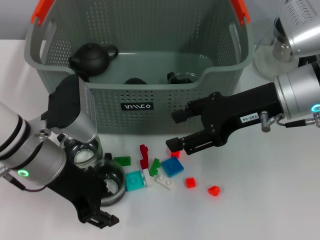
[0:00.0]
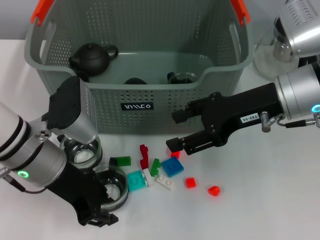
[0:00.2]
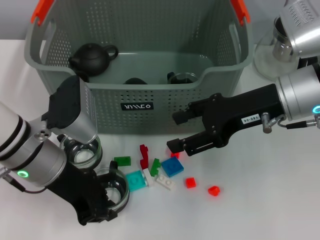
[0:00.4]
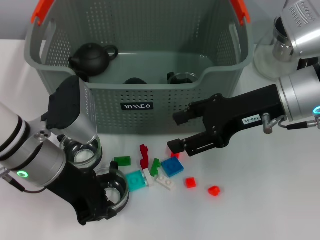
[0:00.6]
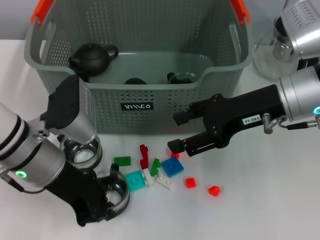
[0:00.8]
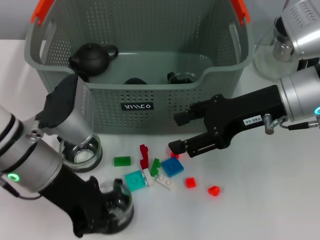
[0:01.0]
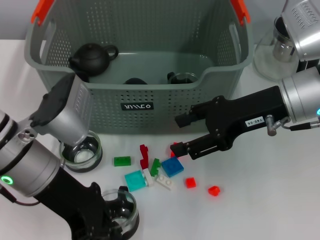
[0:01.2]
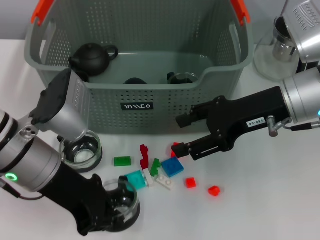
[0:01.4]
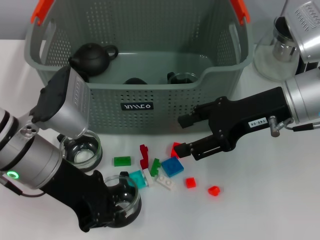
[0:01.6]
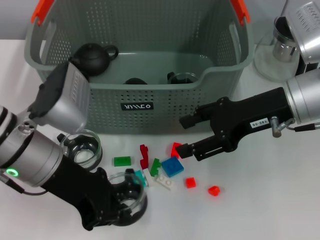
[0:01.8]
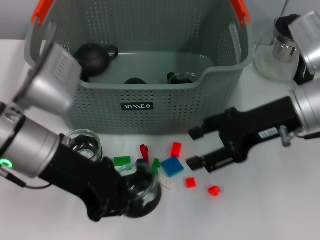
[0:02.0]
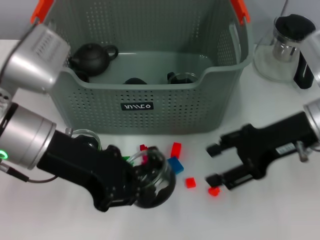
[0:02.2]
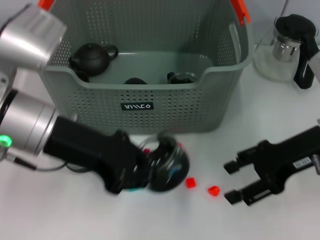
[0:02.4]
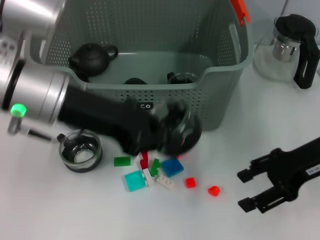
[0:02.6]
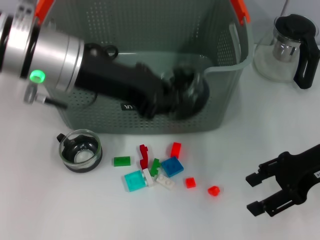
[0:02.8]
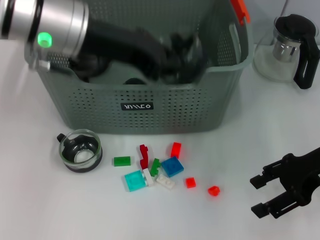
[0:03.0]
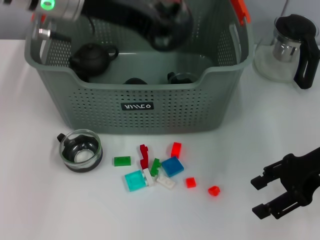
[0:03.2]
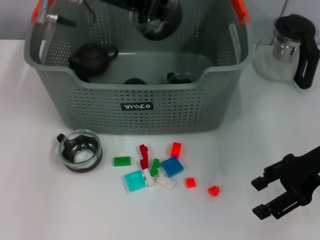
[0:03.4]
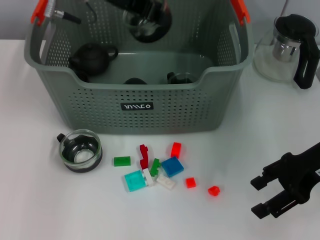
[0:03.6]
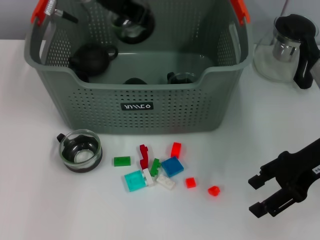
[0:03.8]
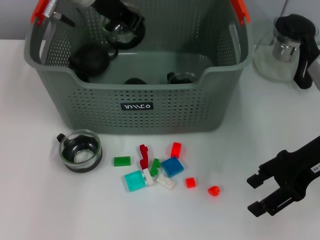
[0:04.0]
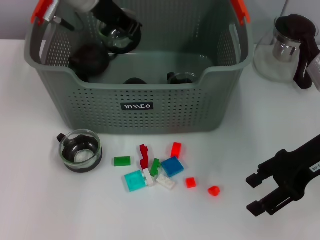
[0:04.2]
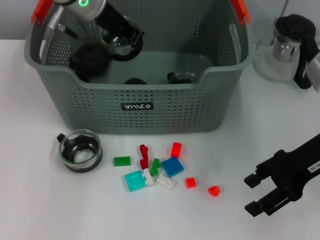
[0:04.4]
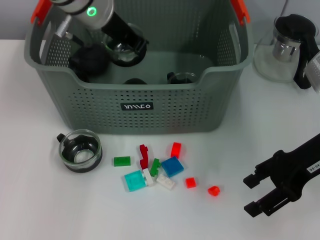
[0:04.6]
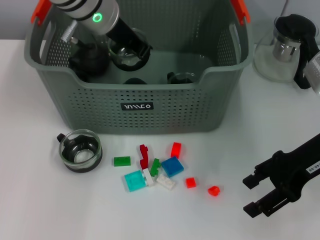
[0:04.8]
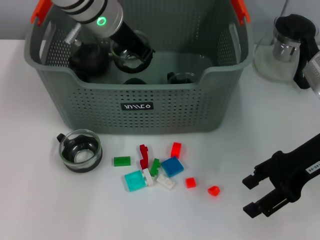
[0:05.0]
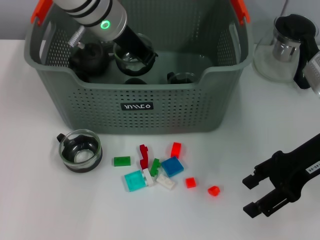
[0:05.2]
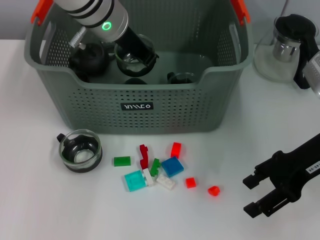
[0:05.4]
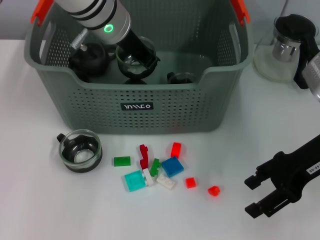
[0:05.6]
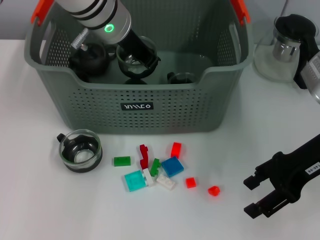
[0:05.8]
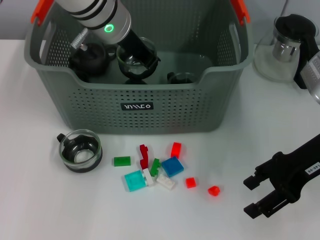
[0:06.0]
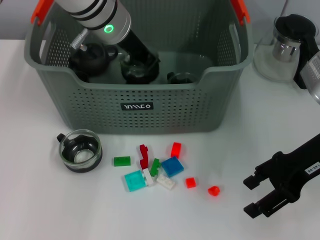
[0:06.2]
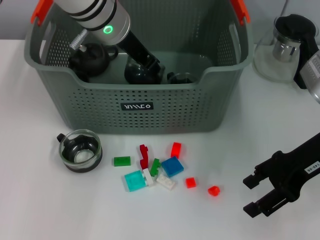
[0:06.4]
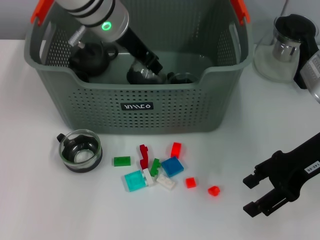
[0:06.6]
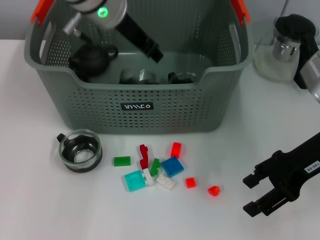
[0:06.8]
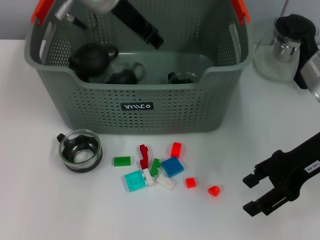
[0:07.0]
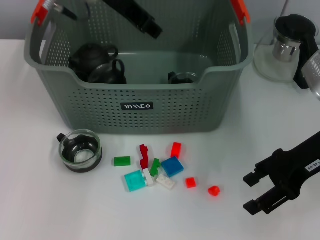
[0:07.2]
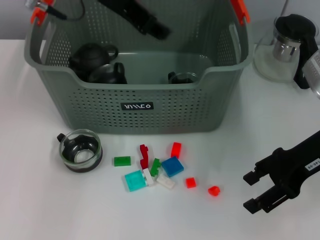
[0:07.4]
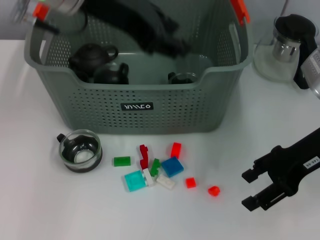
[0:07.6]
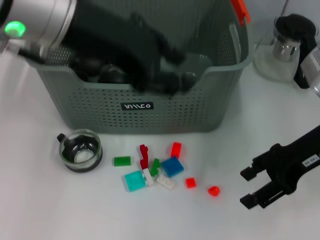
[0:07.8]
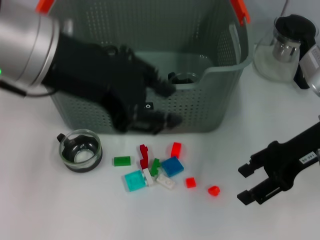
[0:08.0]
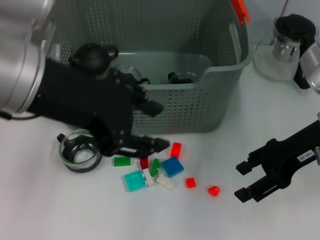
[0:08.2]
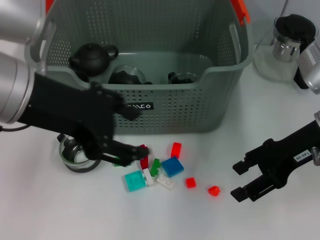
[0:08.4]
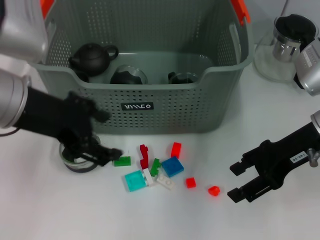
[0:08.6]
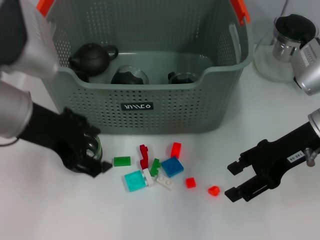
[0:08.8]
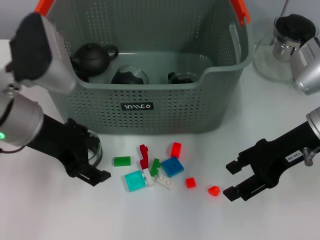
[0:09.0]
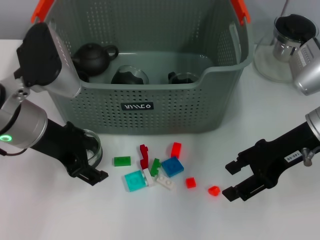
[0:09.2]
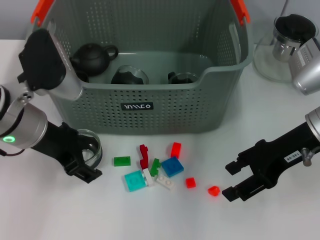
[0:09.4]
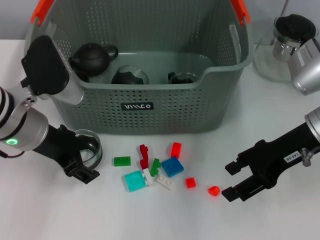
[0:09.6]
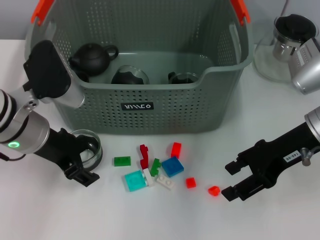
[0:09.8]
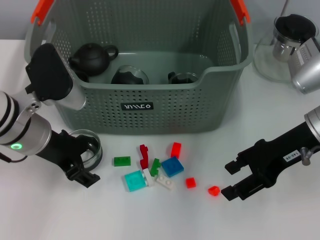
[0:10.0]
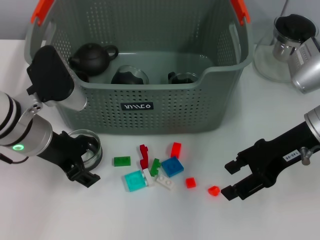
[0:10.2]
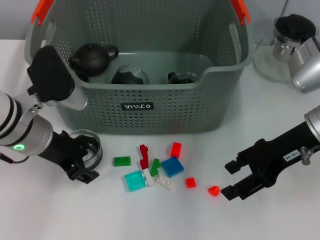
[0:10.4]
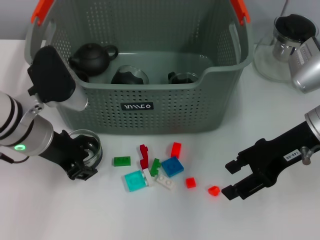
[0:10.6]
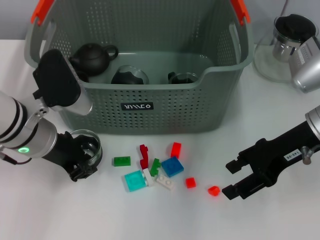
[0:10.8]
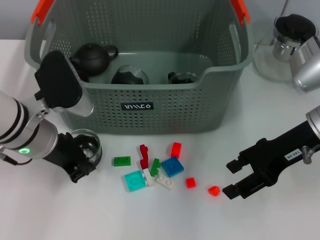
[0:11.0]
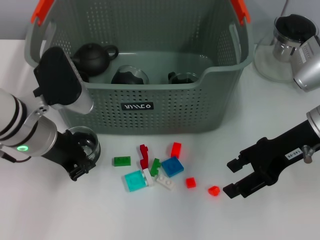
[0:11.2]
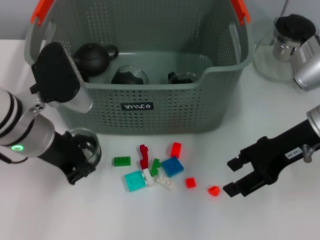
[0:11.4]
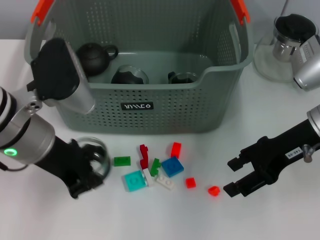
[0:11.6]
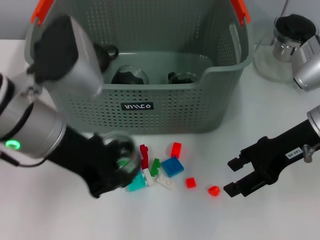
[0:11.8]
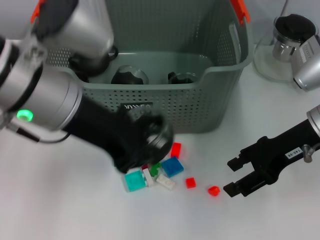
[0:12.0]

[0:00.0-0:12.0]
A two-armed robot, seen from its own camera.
Task of the whole recording: pick up the teacup on the table and place it into the storage bin, pick up the block on the table and place it into the storage bin.
Step, 0:00.8 to 0:06.6: Place the cup in the storage box with left gripper.
Step, 0:07.0 to 0:11.0: Grasp the cup with left gripper.
0:00.0 to 0:01.6: The left gripper closes up.
0:01.6 to 0:03.0: The right gripper heads to the right, covering roughly 10 cm, while the left gripper travels upward and forward by some 15 cm.
0:03.0 to 0:04.4: The left gripper travels forward by some 10 cm.
0:04.4 to 0:06.0: The grippers make only small movements.
0:06.0 to 0:07.6: The left gripper moves upward and backward, roughly 15 cm, and opens up.
0:07.6 to 0:09.0: The left gripper heads downward and to the left, covering roughly 15 cm, and opens up.
0:09.0 to 0:10.4: The left gripper goes some 5 cm downward.
0:10.4 to 0:12.0: The left gripper moves upward and to the right, approximately 15 cm, and closes its fingers.

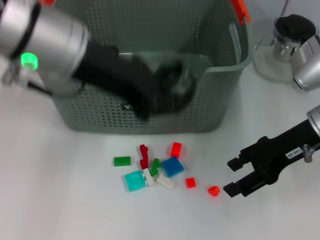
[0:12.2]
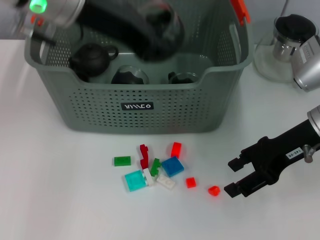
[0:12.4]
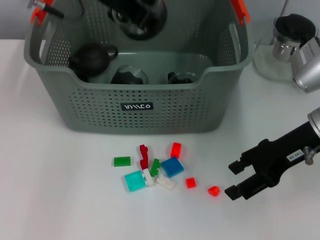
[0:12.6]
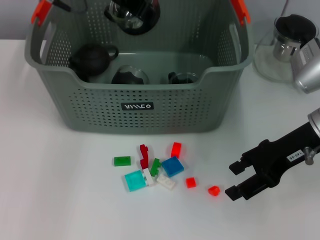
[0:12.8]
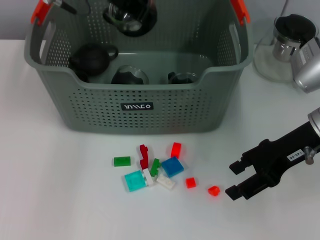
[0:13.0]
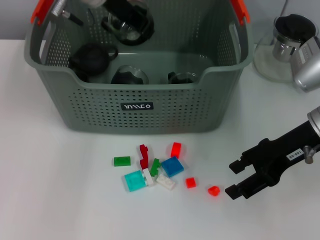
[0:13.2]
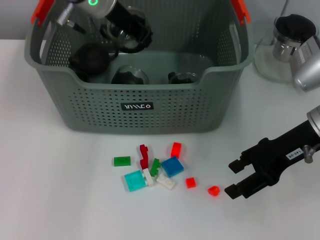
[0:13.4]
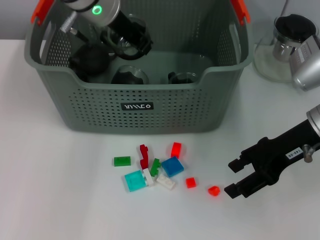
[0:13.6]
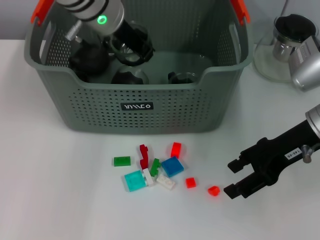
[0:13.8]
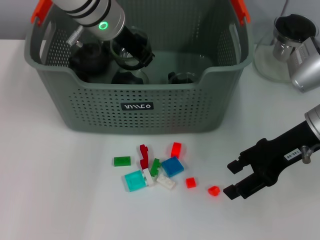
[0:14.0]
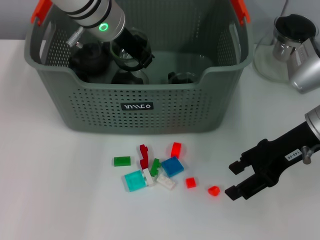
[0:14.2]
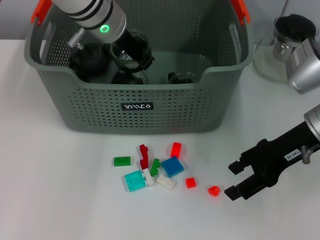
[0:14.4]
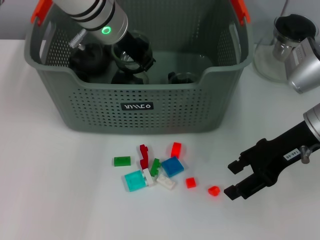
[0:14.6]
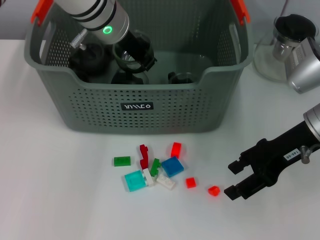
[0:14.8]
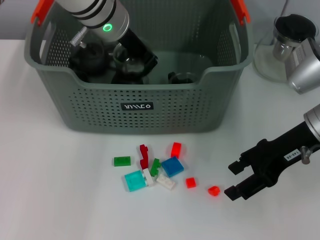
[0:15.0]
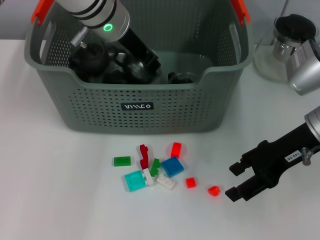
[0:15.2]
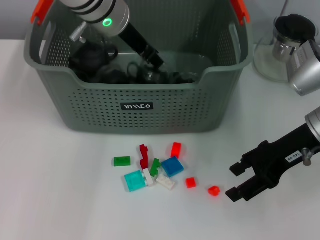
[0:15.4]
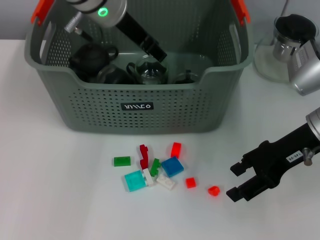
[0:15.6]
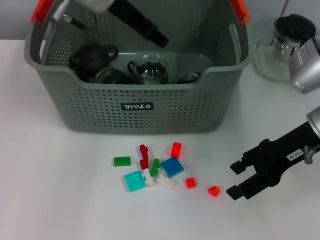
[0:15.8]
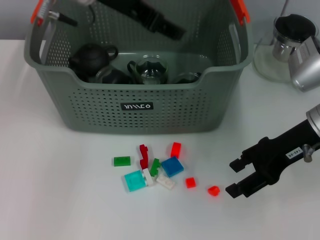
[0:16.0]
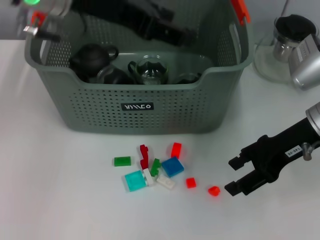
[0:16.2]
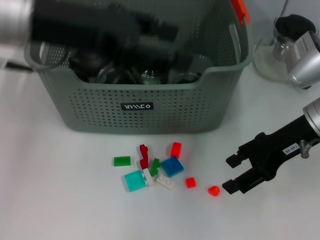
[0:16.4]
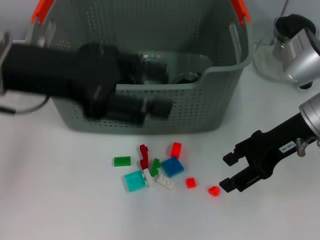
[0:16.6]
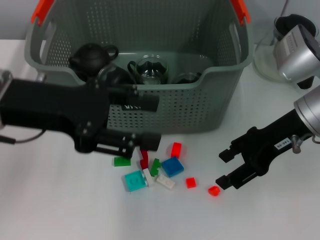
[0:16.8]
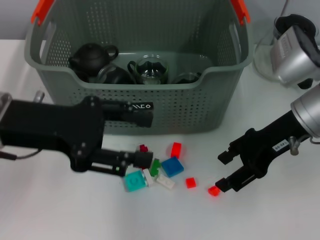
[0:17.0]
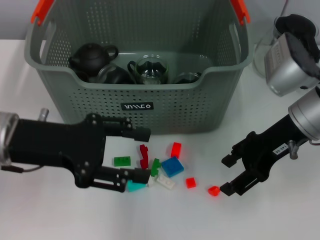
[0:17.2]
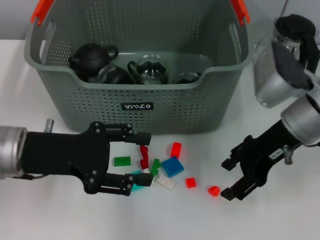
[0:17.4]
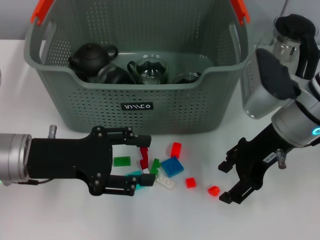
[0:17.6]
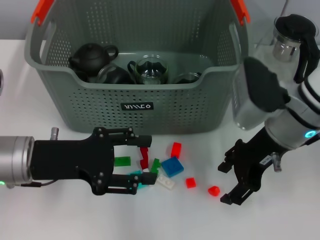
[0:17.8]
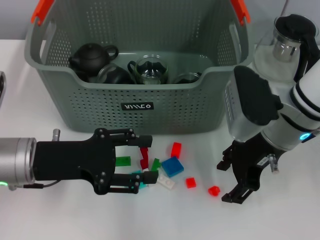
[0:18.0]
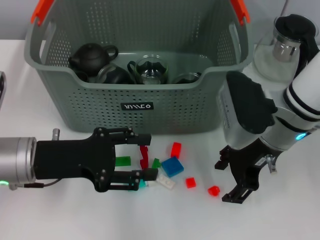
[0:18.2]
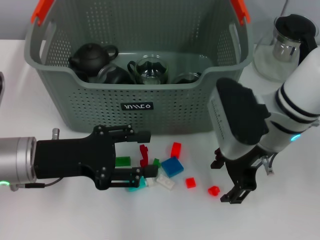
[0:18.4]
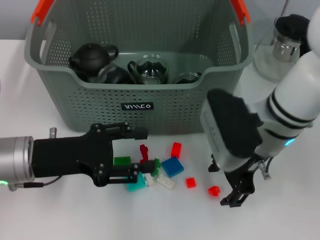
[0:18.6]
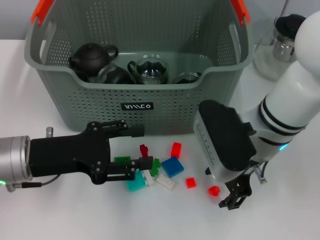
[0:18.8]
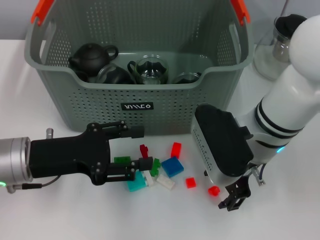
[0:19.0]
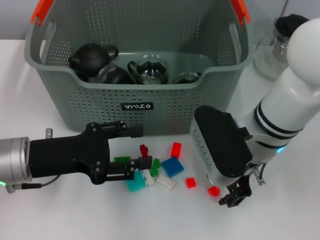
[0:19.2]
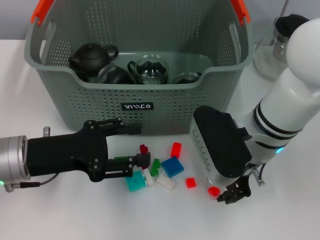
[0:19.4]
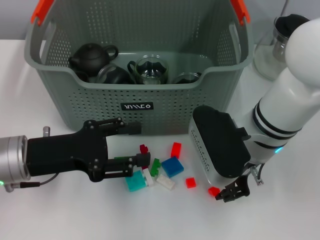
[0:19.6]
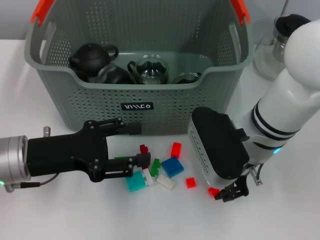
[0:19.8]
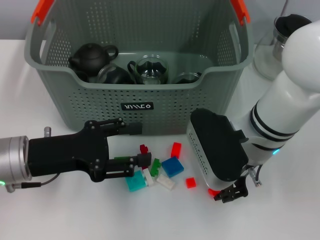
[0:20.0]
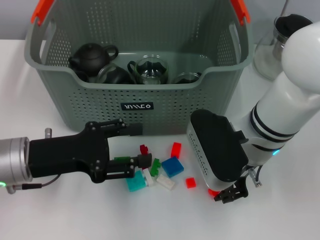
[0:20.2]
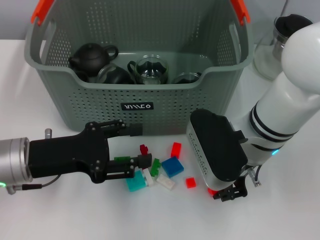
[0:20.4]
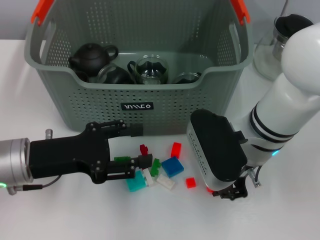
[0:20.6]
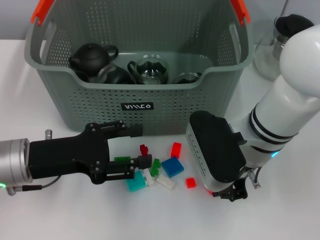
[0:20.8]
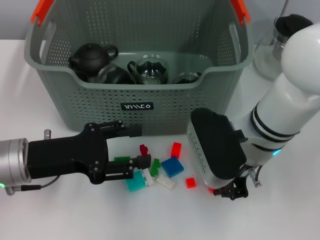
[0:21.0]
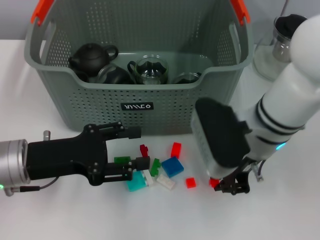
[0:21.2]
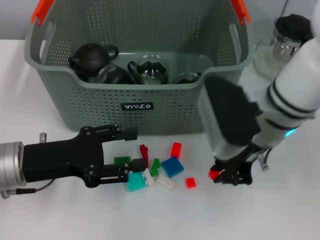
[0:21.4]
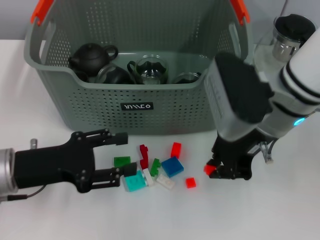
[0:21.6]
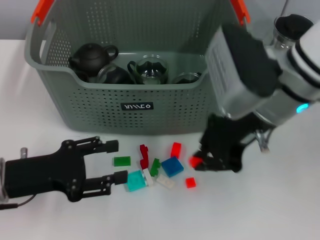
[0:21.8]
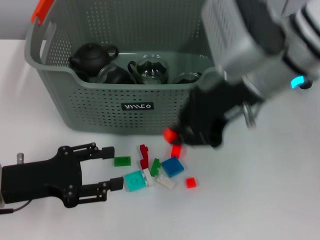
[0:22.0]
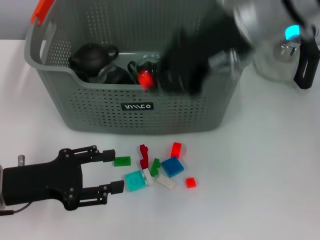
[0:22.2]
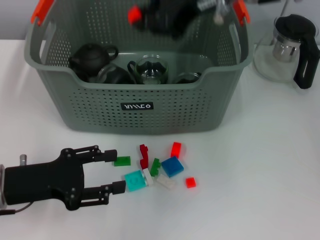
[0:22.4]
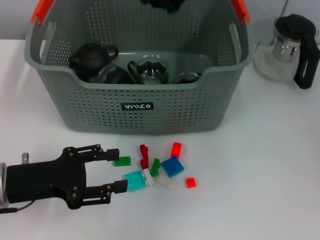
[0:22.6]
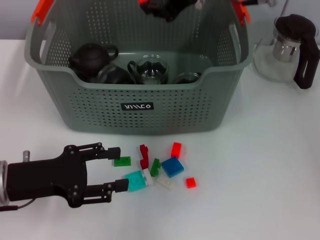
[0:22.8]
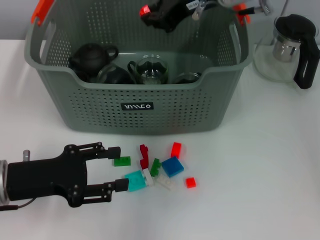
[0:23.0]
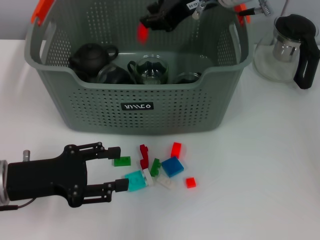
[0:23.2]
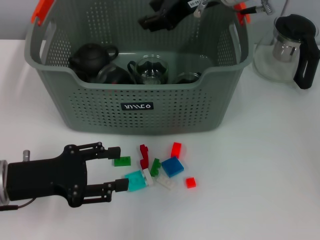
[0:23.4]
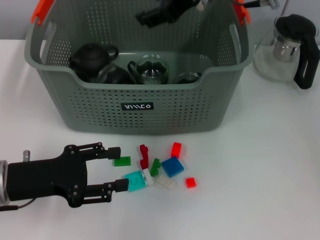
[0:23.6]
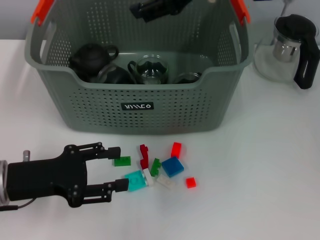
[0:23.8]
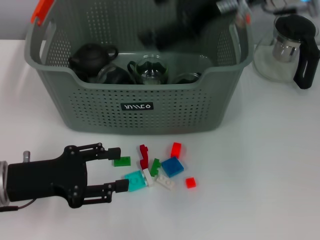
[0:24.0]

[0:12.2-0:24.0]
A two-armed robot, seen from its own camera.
Task of the whole recording: pick up the teacup on the table and place it into the storage bin, pick up the block on the table and place it into the storage bin.
Step, 0:12.2 to 0:15.8: Place the cup in the storage box with left gripper.
Step, 0:16.0 to 0:20.8: Grasp the orange block with right gripper.
Step, 0:21.0 to 0:23.2: Place the orange block in the storage box with right gripper.
0:12.2 to 0:13.6: The left gripper is displaced forward by about 15 cm.
0:13.6 to 0:15.2: The grippers make only small movements.
0:15.2 to 0:16.6: The left gripper shifts some 20 cm backward and to the left, and opens.
0:16.6 to 0:18.2: The left gripper goes some 15 cm downward; the right gripper goes about 5 cm to the left.
0:18.2 to 0:19.6: The grippers move only a little.
0:19.6 to 0:21.0: The right gripper closes up.
0:21.0 to 0:22.6: The right gripper is displaced upward and forward by approximately 20 cm.
0:22.6 to 0:24.0: The right gripper moves approximately 5 cm, and opens up.
